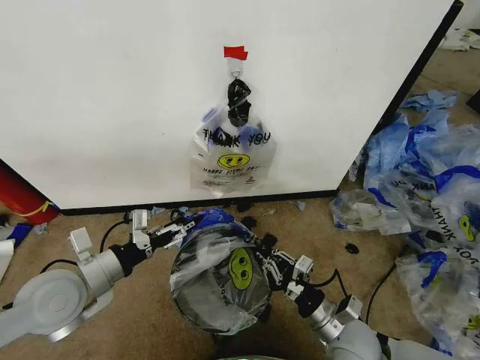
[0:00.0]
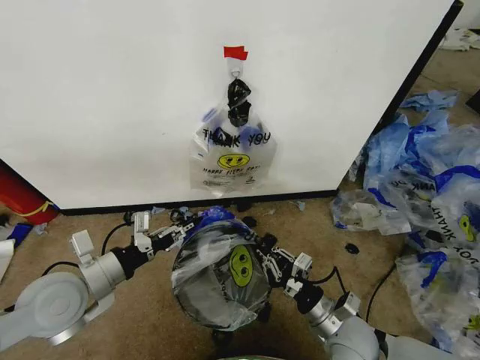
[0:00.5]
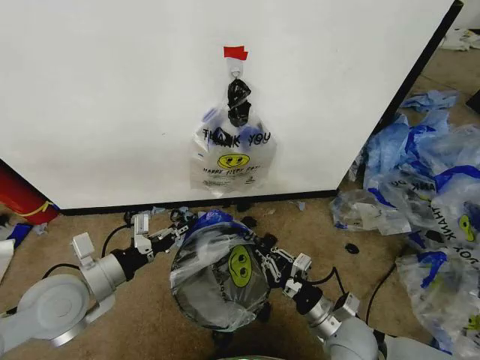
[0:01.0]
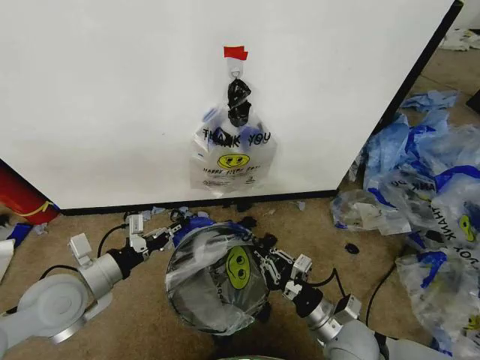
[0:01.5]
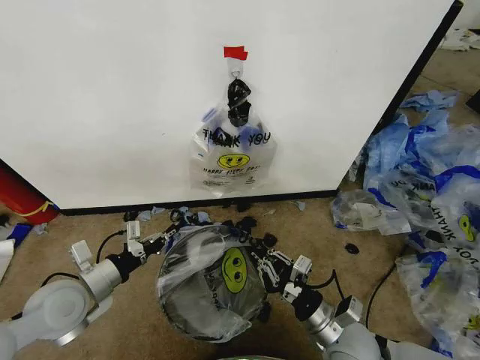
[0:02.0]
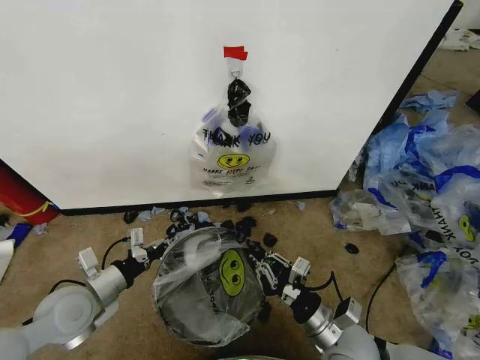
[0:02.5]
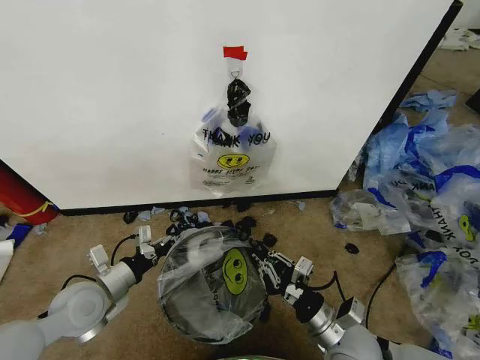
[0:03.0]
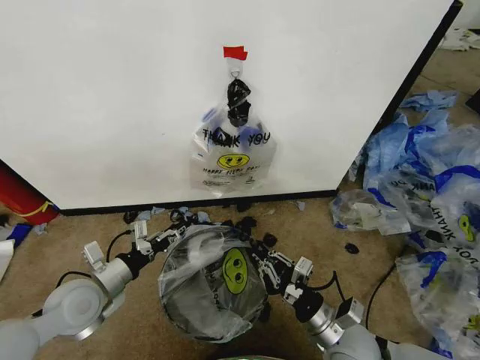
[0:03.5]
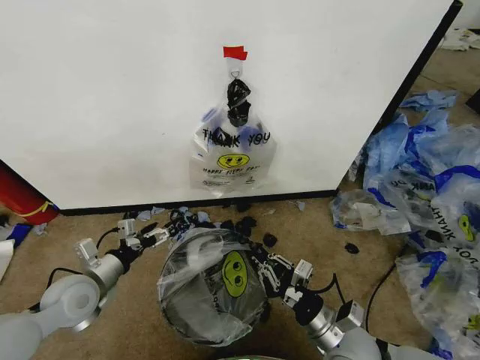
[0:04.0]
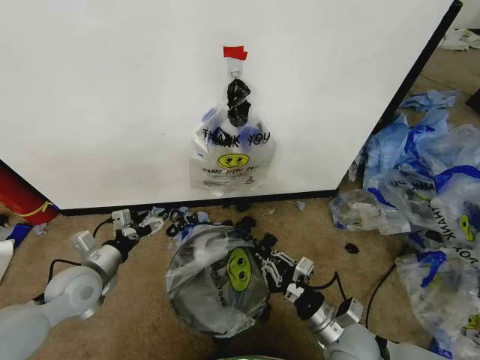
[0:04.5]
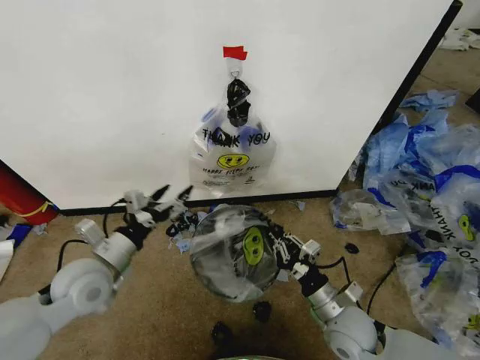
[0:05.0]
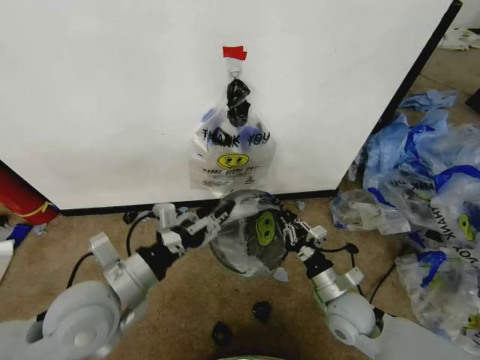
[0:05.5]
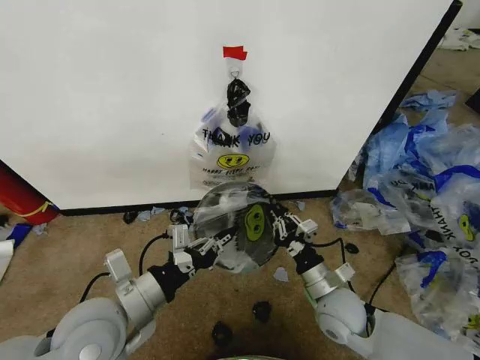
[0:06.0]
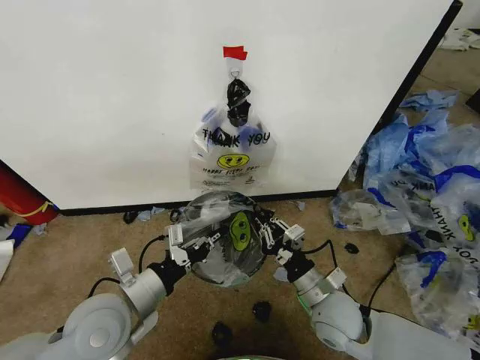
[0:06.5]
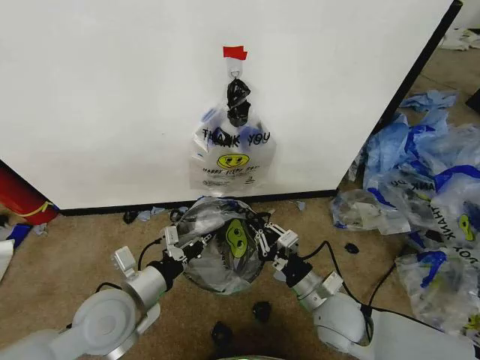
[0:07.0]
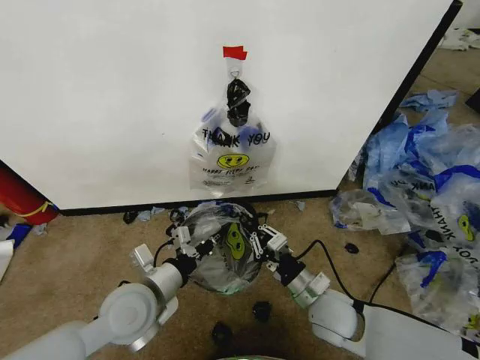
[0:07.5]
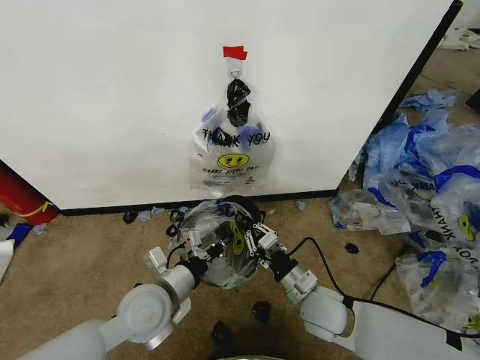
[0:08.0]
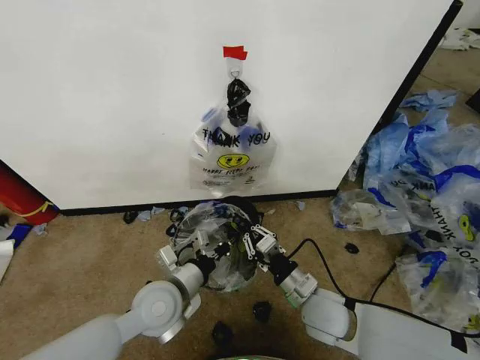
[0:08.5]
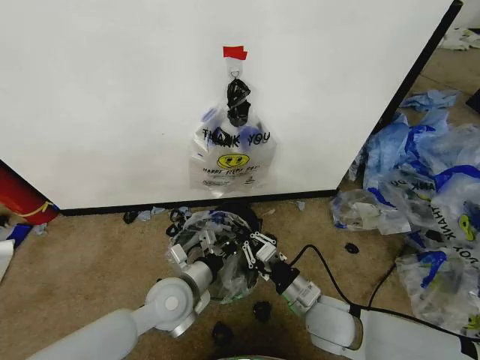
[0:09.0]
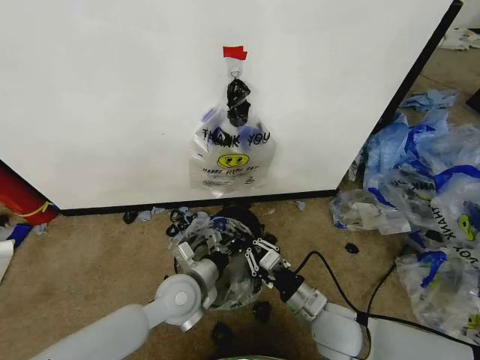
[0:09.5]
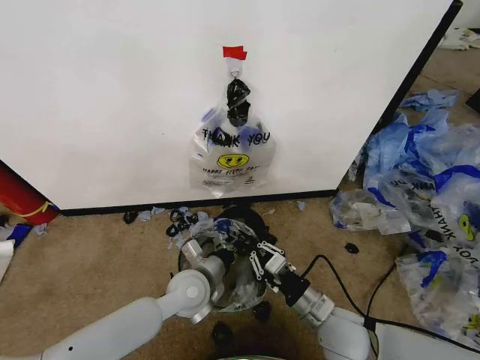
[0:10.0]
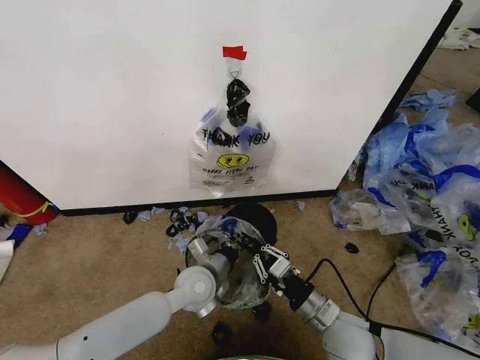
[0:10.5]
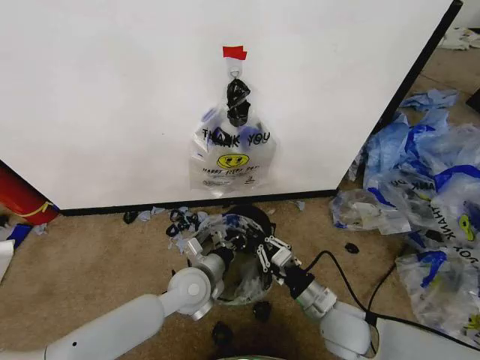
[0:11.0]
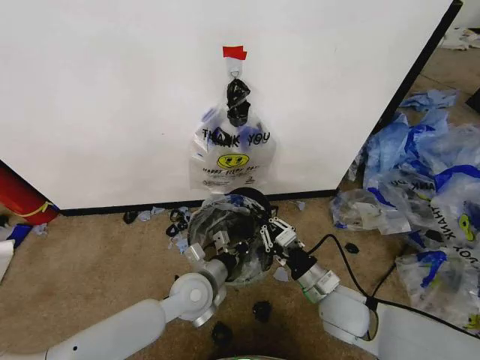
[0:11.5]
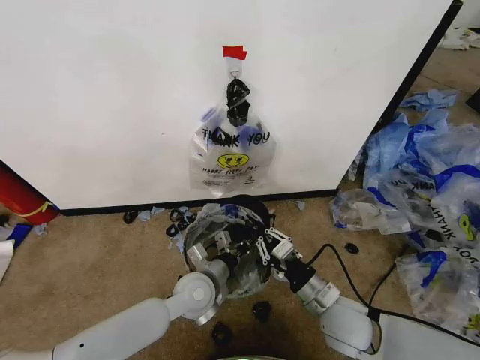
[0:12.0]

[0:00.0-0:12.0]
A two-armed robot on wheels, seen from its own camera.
Task of the whole recording: Pick up the garbage bag from the wall and place it over the trash bin.
0:00.0 to 0:02.0: The left gripper heads downward, covering about 5 cm, and closes its fingers.
0:02.0 to 0:04.0: The left gripper opens.
0:04.0 to 0:06.0: The right gripper is displaced forward by about 5 cm. The left gripper is displaced to the right, upward and backward by approximately 20 cm, and closes its fingers.
0:06.0 to 0:08.0: The left gripper travels downward and forward by about 10 cm.
0:08.0 to 0:10.0: The right gripper changes place by about 5 cm, while the left gripper travels to the right, forward and downward by roughly 10 cm.
0:10.0 to 0:12.0: The grippers stay close to where they were, moving slightly.

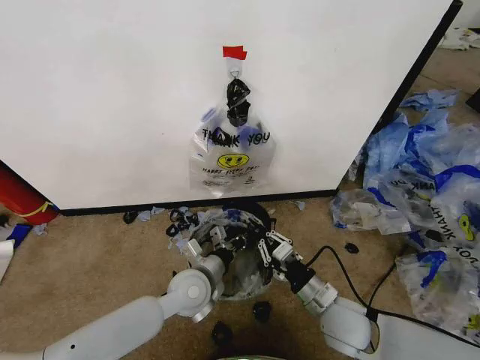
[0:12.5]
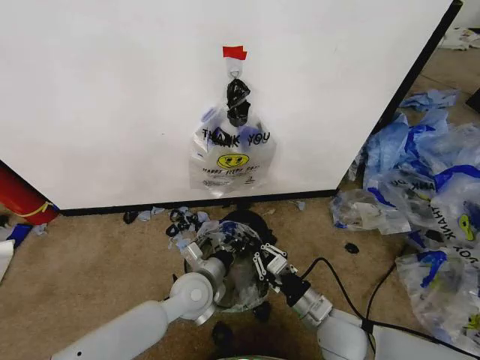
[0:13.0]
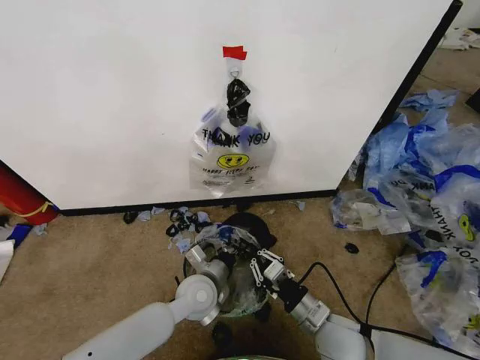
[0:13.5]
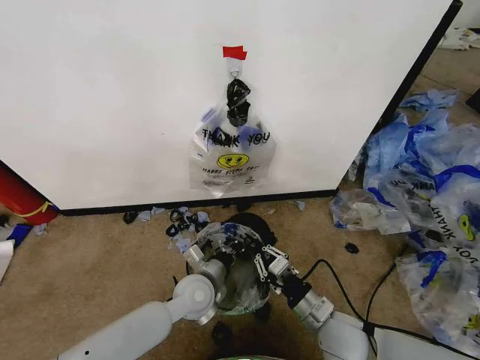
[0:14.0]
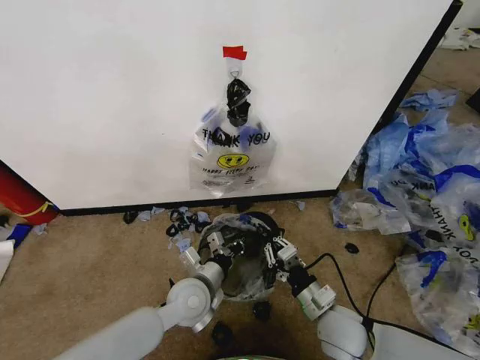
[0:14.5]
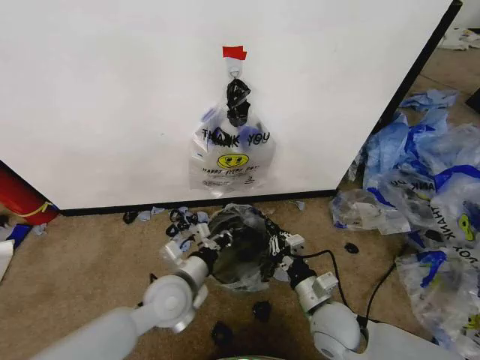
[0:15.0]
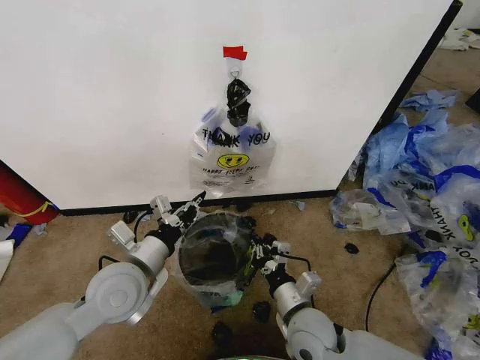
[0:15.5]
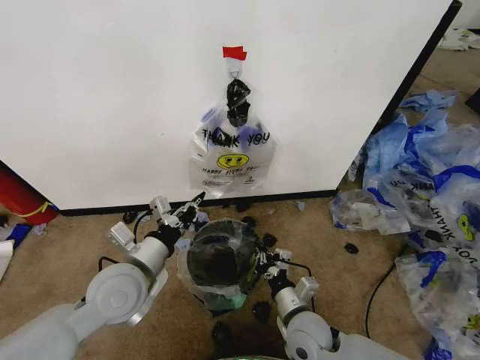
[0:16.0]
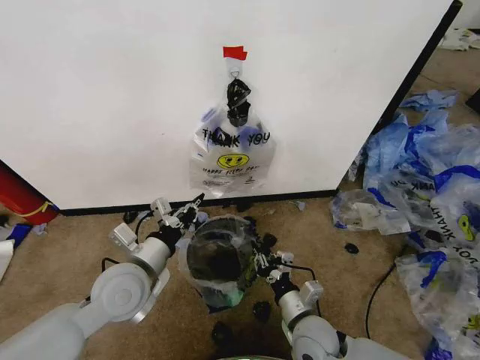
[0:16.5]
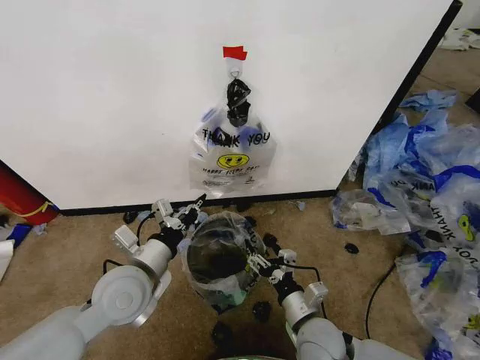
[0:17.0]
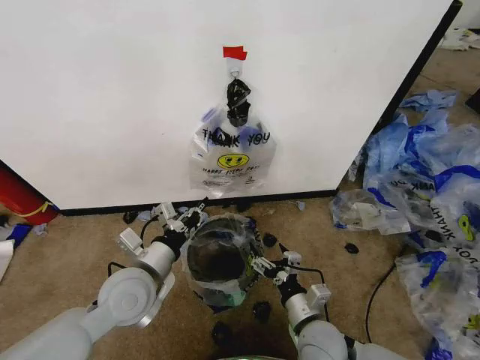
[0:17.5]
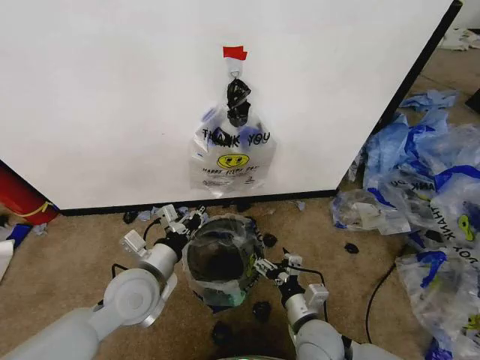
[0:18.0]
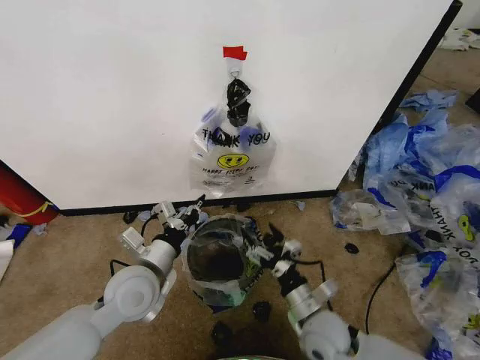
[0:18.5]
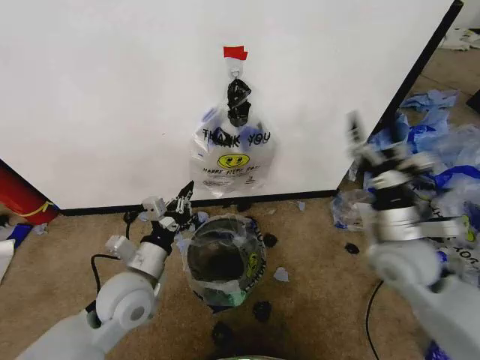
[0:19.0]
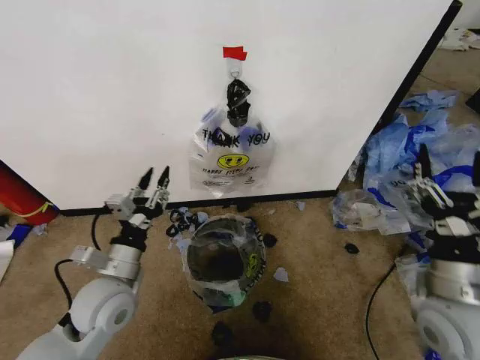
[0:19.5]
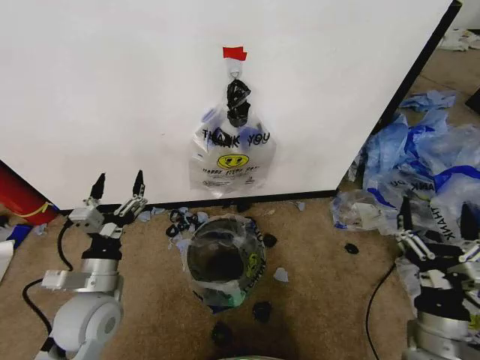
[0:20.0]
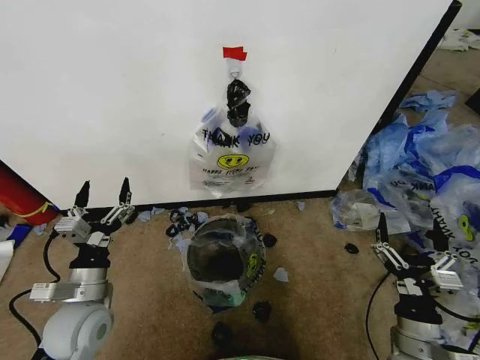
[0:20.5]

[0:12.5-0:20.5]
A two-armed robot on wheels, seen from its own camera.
Task of the whole recording: Pick up the garbage bag from the wall and place it over the trash bin.
0:12.5 to 0:14.5: There are only small adjustments of the grippers.
0:14.5 to 0:16.5: The right gripper travels to the left by roughly 5 cm. The left gripper heads upward and to the left, covering approximately 15 cm.
0:16.5 to 0:18.5: The right gripper opens its fingers.
0:18.5 to 0:20.5: The left gripper goes roughly 10 cm to the left, and opens, while the right gripper moves to the right and backward, approximately 15 cm, and travels upward and back again, about 15 cm each way.

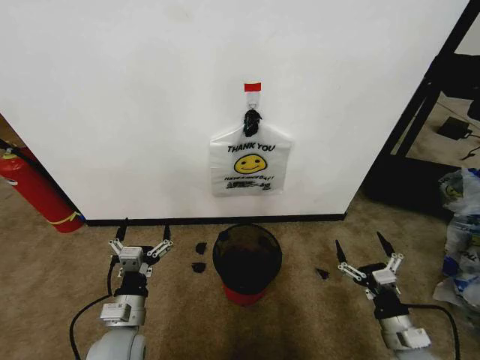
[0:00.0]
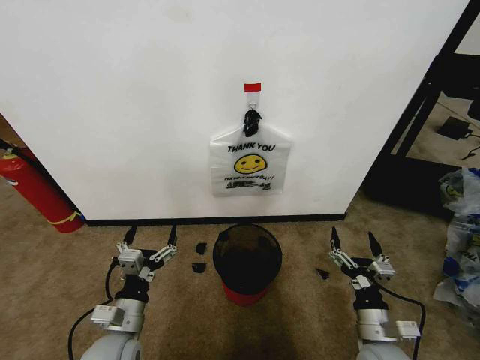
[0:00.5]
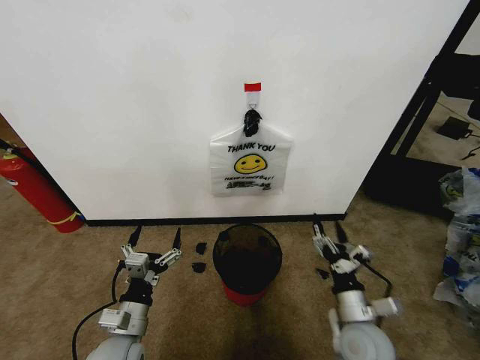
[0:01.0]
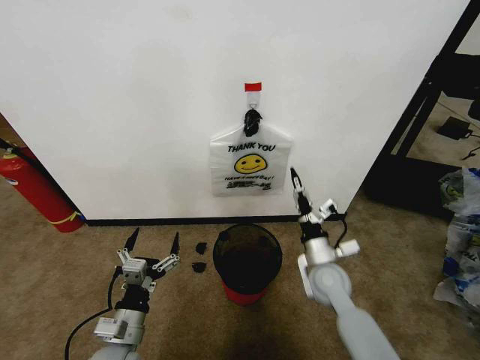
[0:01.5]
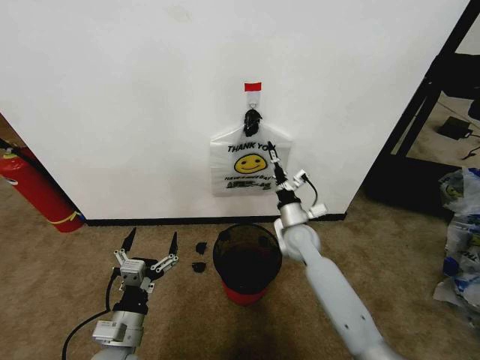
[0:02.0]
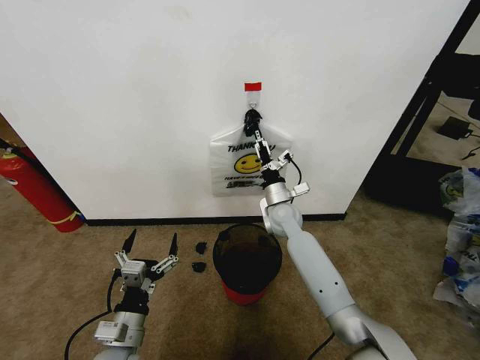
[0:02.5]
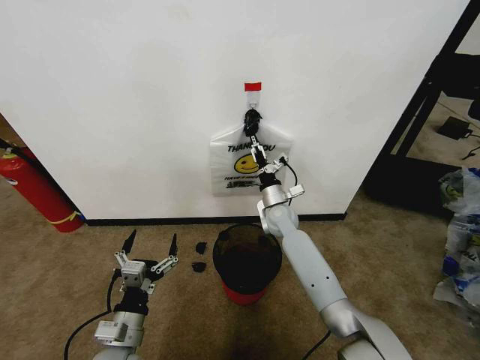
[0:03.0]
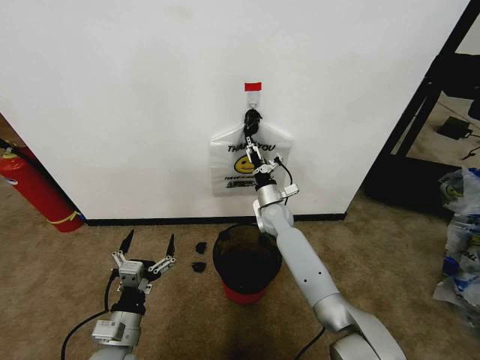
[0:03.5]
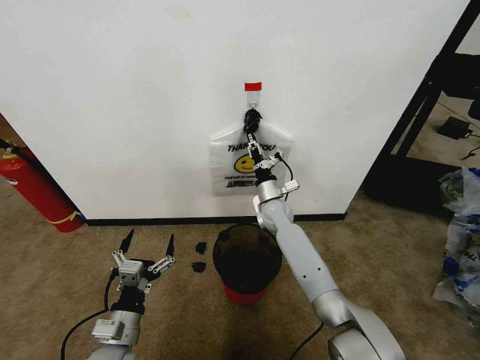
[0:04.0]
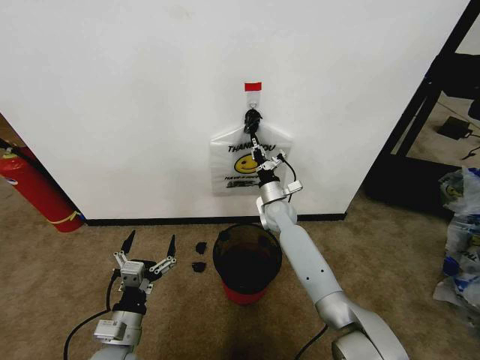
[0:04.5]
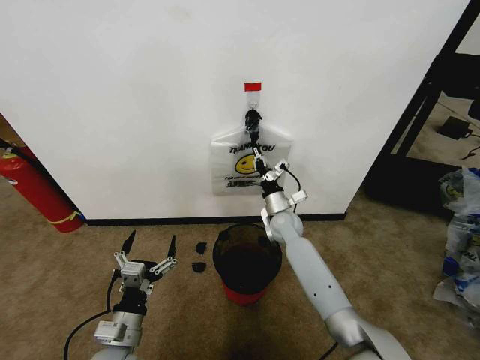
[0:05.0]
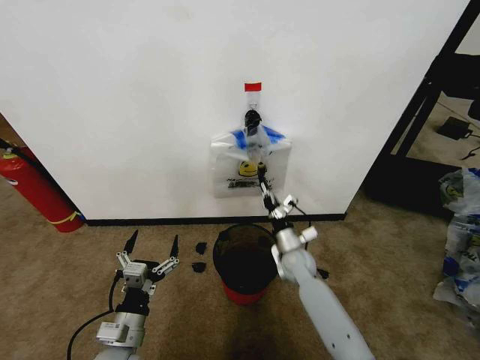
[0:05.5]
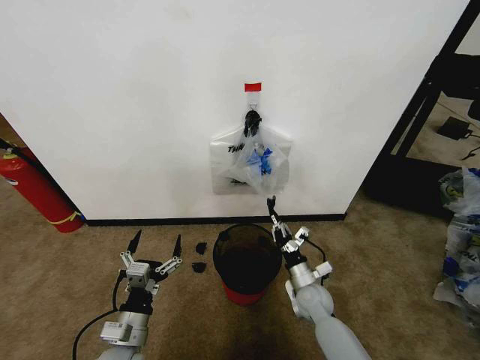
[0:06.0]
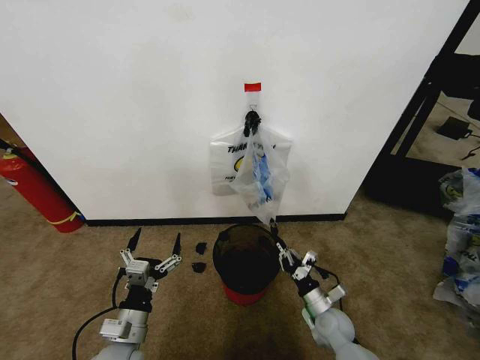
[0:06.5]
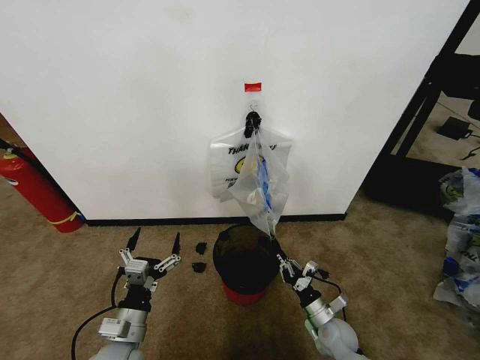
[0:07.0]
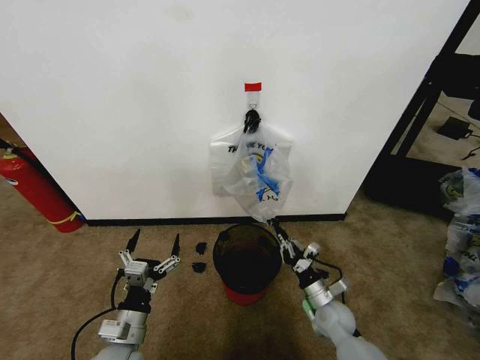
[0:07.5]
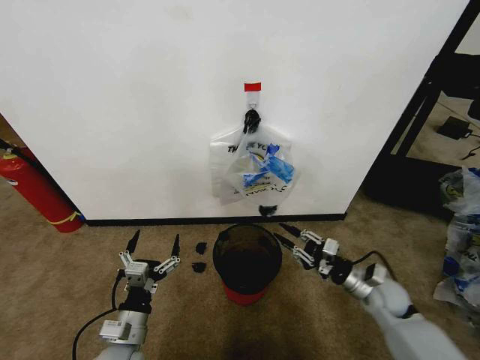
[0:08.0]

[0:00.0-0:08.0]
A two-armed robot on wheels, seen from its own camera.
Task of the whole recording: Pick up the garbage bag from the wall and place it over the trash bin.
0:02.0 to 0:04.0: The right gripper moves forward and to the left, some 10 cm, and closes its fingers.
0:04.0 to 0:06.0: The right gripper travels backward, downward and to the right by some 25 cm.
0:06.0 to 0:08.0: The right gripper shifts about 15 cm to the right and upward.
